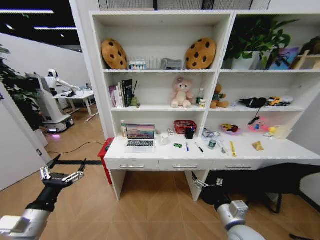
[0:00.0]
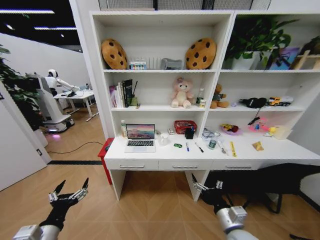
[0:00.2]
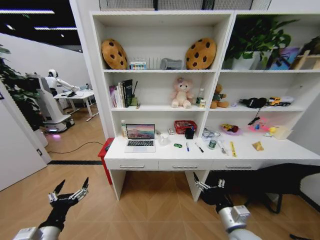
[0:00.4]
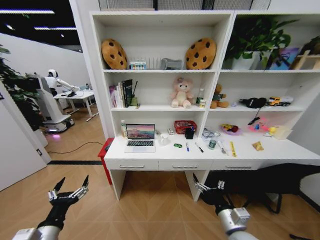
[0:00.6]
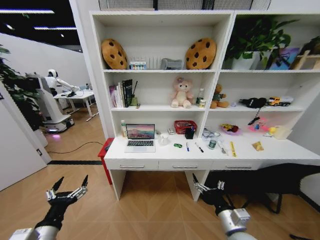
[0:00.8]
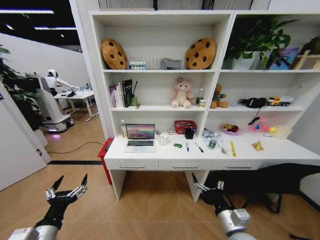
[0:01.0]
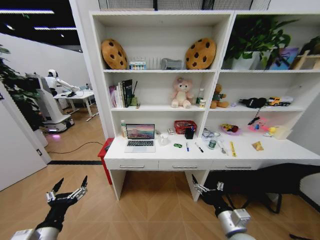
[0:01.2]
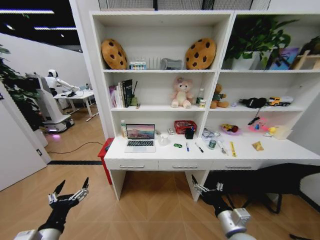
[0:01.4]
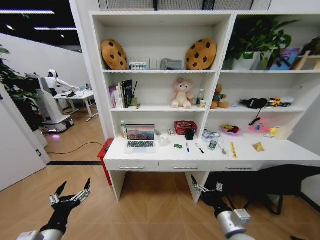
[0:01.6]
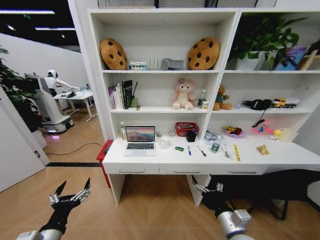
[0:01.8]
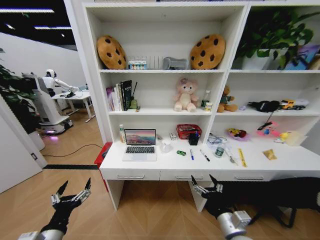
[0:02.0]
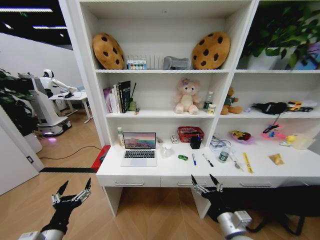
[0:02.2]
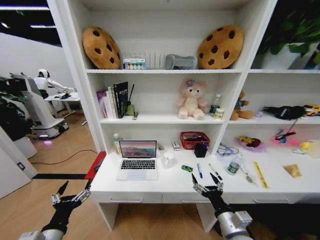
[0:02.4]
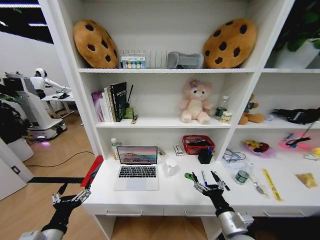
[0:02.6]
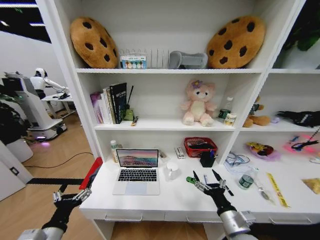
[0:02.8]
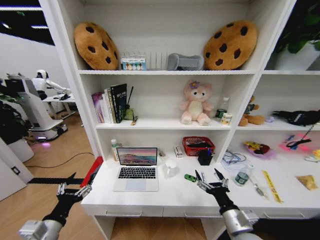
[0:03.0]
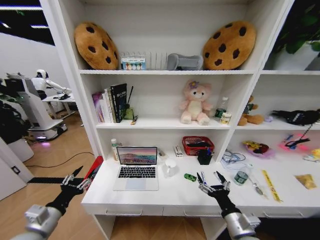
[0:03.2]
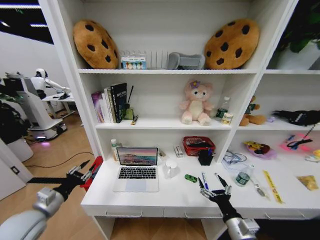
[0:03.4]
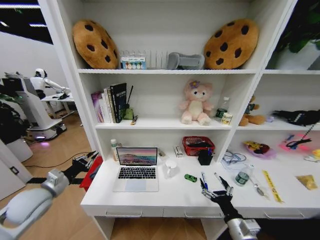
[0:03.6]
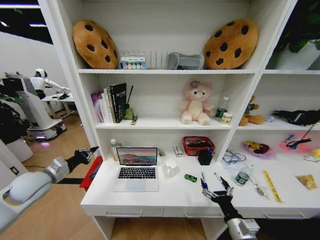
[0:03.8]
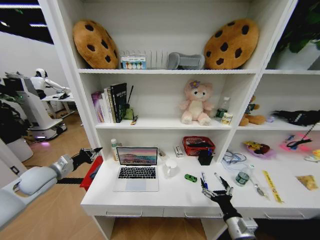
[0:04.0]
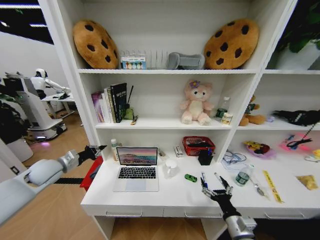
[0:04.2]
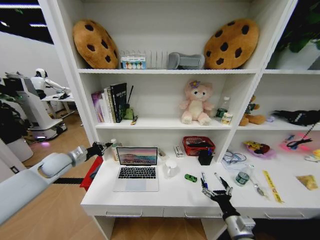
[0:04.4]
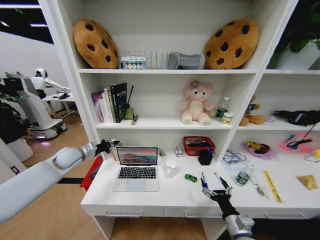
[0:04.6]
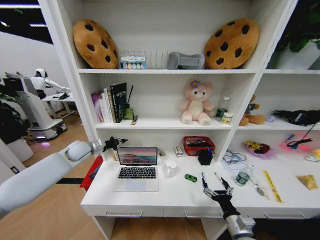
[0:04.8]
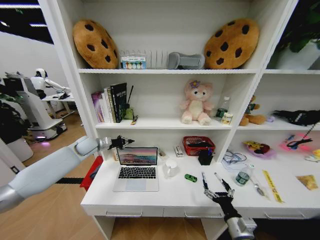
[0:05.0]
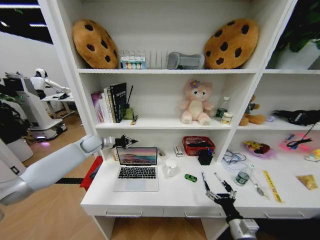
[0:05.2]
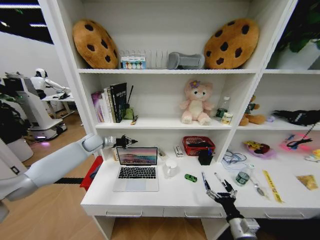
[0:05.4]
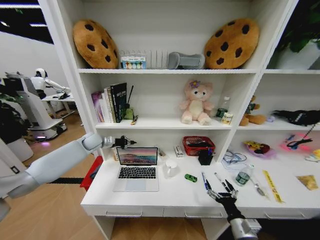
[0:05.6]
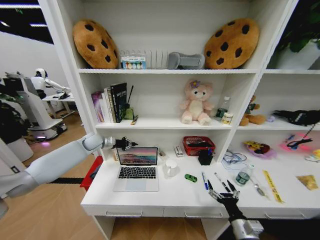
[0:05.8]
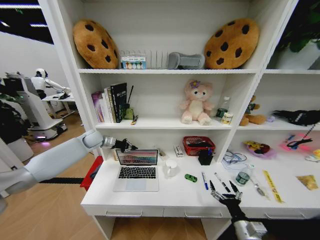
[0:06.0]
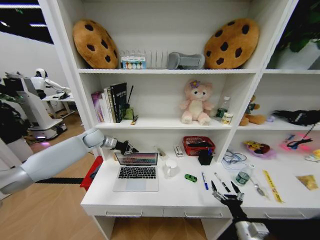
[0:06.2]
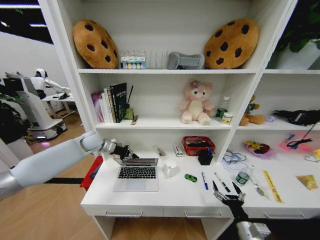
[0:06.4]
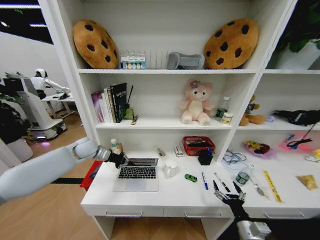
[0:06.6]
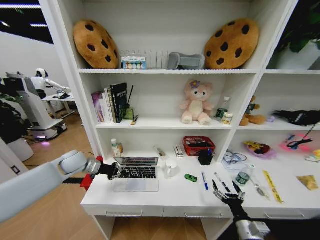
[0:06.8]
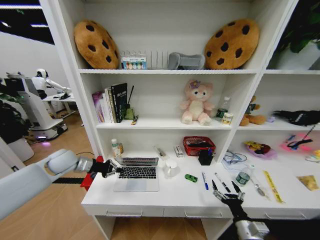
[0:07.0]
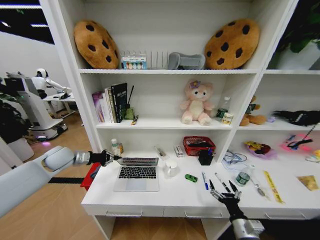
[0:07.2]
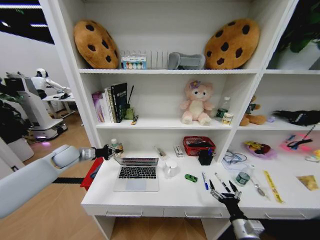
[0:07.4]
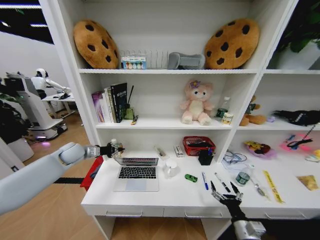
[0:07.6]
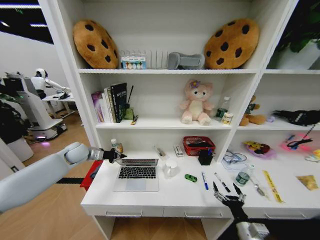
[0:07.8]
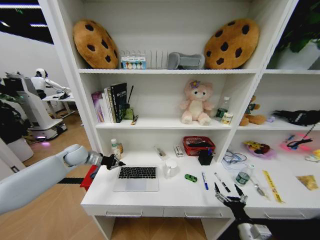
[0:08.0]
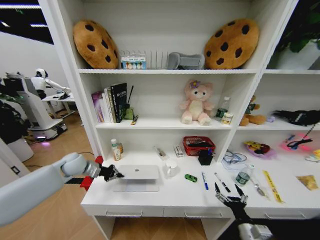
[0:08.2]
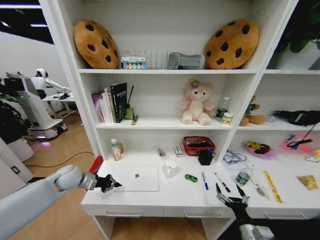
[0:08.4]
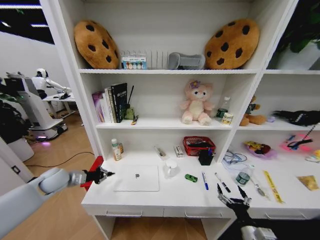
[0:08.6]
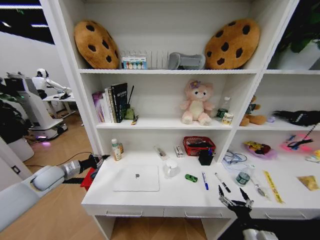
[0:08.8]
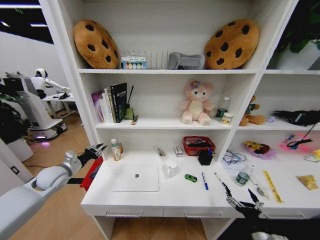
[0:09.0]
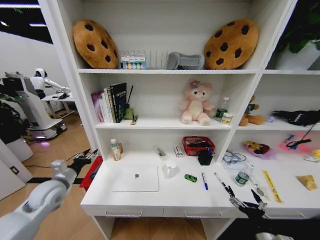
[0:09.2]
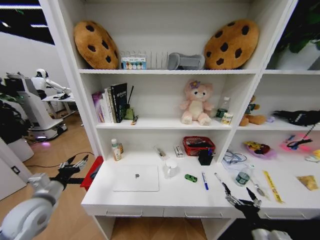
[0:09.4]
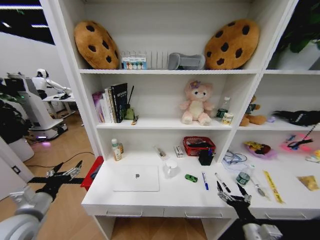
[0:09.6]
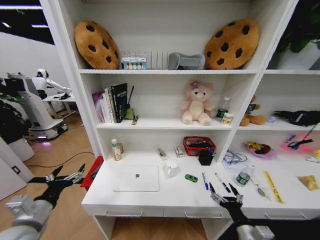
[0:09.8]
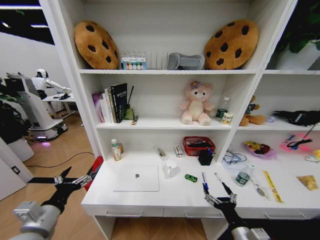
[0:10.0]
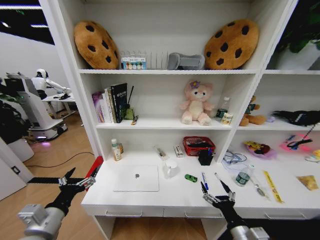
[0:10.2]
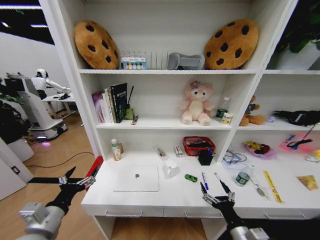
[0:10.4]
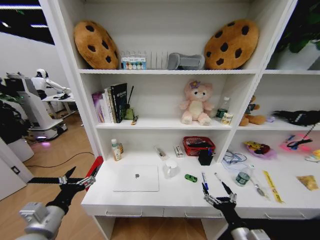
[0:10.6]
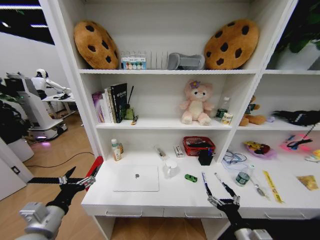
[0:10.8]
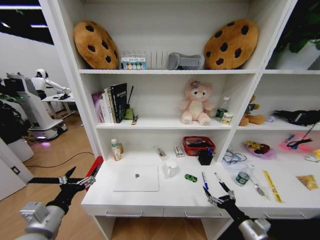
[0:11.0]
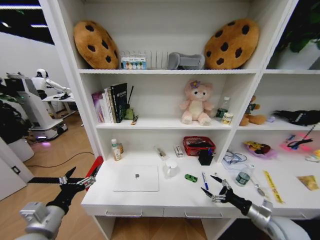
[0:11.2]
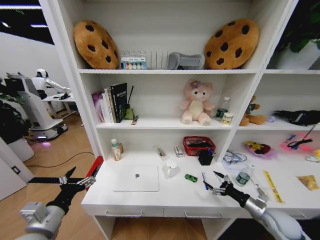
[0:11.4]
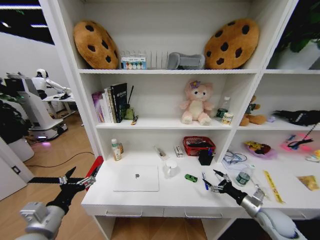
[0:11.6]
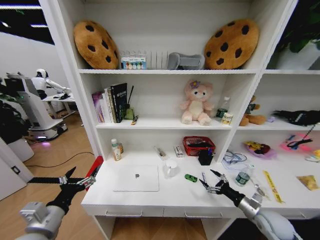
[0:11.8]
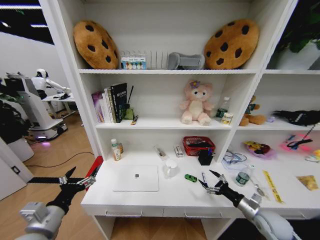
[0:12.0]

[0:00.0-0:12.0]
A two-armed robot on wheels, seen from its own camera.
Task of the whole recording: Organize the objects on the table.
0:03.0 to 0:04.4: The right gripper goes about 5 cm downward; the left gripper goes some 30 cm forward, and closes.
0:04.4 to 0:06.0: The left gripper is displaced forward and to the right by some 15 cm.
0:06.0 to 0:07.6: The left gripper goes about 10 cm backward and to the left.
0:07.6 to 0:09.0: The left gripper travels backward by some 10 cm.
0:09.0 to 0:10.4: The left gripper moves backward and to the right, about 25 cm, and opens, while the right gripper moves to the left, about 5 cm.
0:10.4 to 0:12.0: The right gripper moves to the right and forward, some 20 cm.

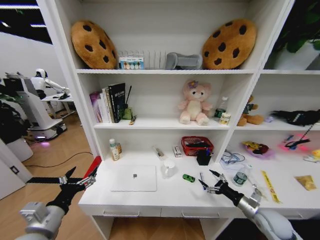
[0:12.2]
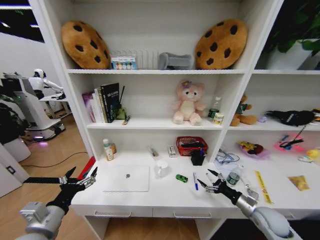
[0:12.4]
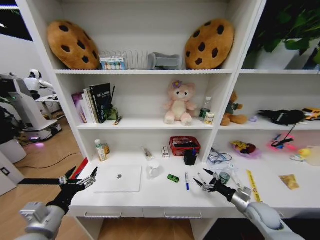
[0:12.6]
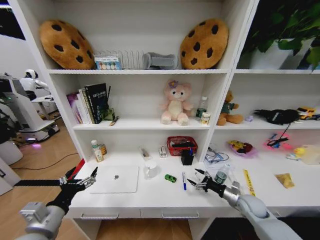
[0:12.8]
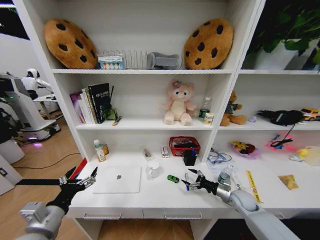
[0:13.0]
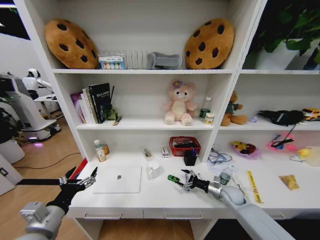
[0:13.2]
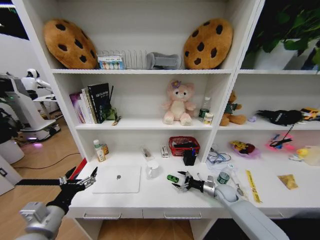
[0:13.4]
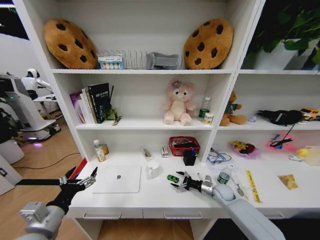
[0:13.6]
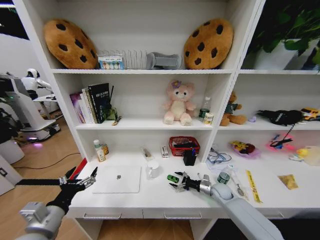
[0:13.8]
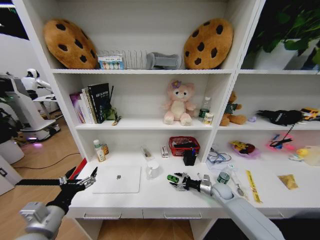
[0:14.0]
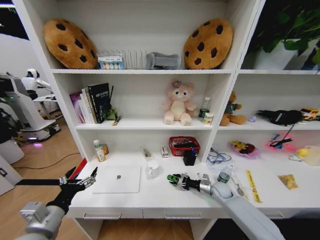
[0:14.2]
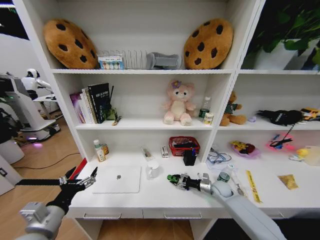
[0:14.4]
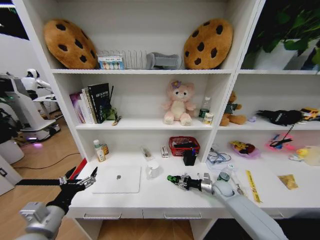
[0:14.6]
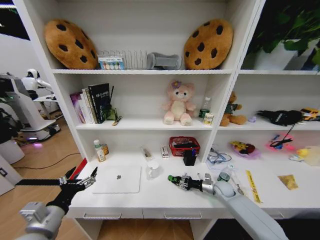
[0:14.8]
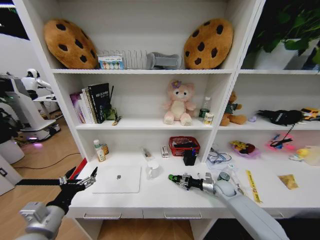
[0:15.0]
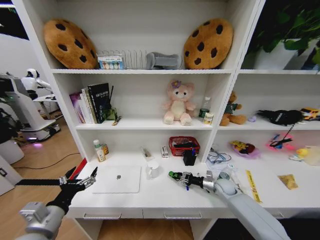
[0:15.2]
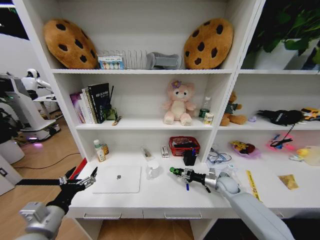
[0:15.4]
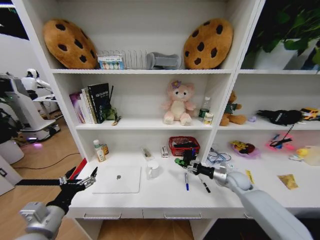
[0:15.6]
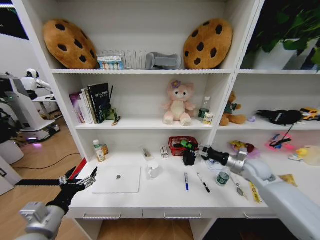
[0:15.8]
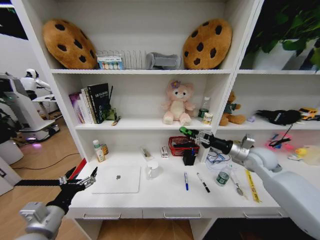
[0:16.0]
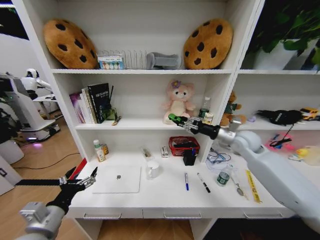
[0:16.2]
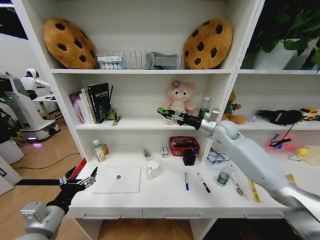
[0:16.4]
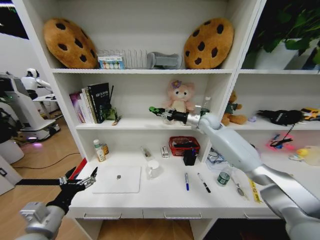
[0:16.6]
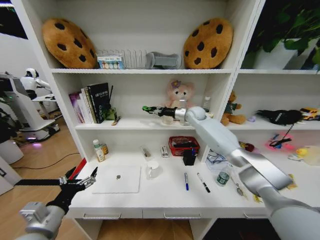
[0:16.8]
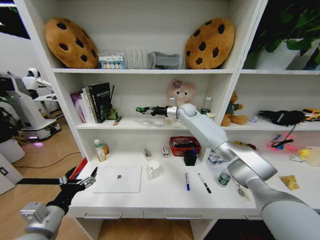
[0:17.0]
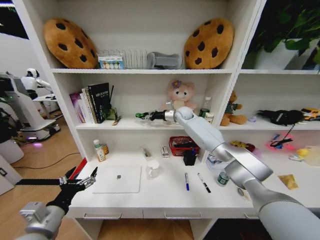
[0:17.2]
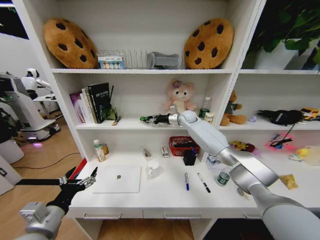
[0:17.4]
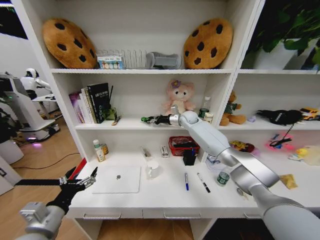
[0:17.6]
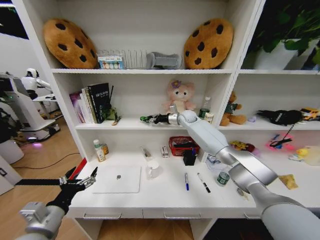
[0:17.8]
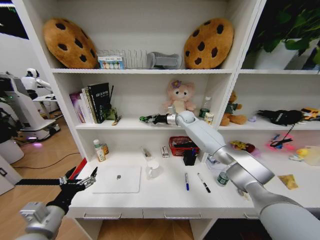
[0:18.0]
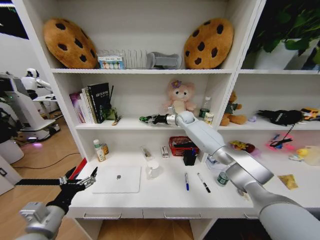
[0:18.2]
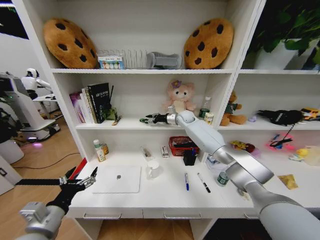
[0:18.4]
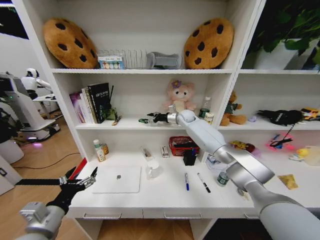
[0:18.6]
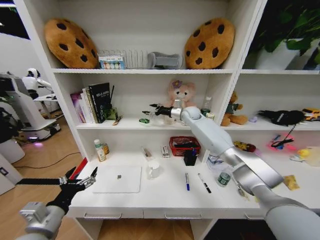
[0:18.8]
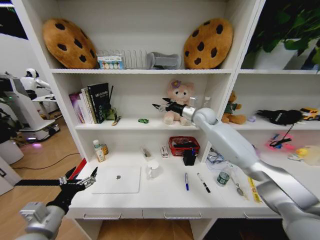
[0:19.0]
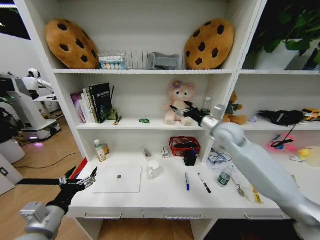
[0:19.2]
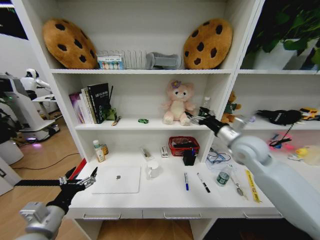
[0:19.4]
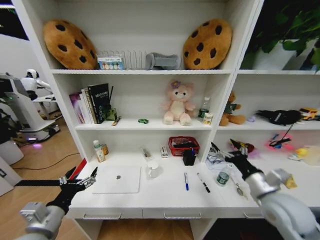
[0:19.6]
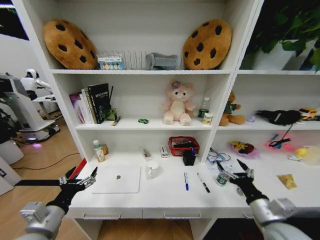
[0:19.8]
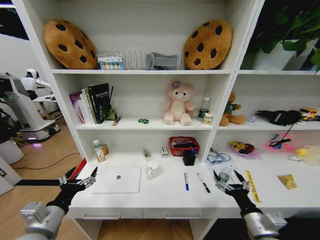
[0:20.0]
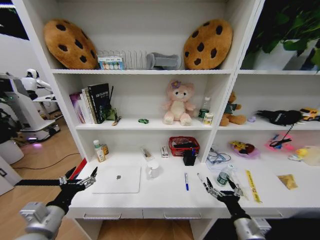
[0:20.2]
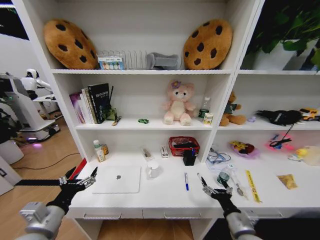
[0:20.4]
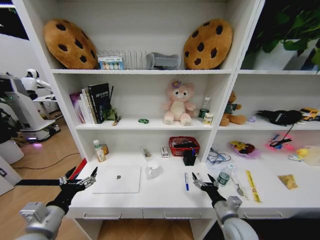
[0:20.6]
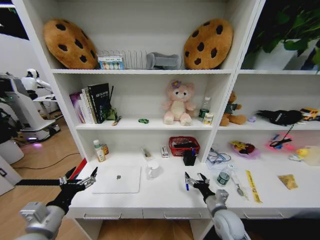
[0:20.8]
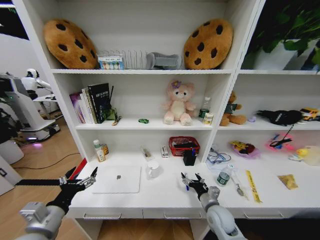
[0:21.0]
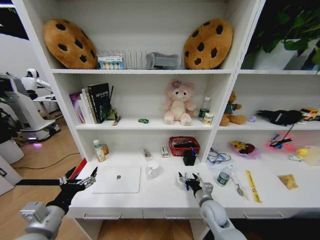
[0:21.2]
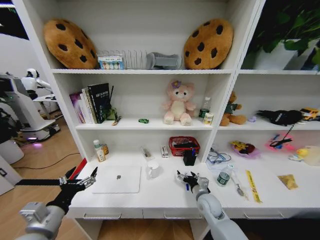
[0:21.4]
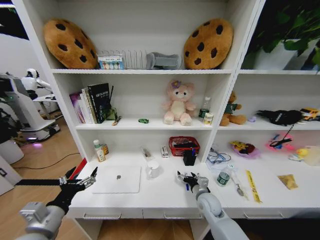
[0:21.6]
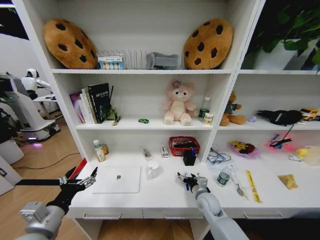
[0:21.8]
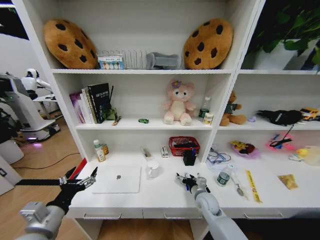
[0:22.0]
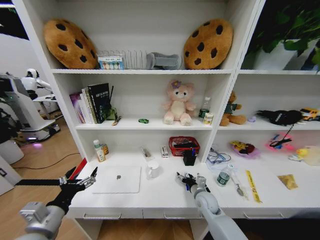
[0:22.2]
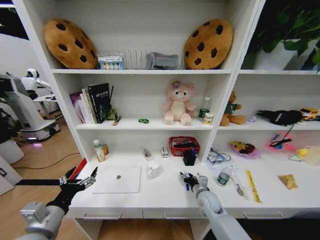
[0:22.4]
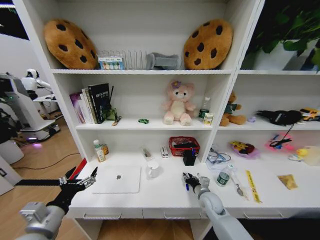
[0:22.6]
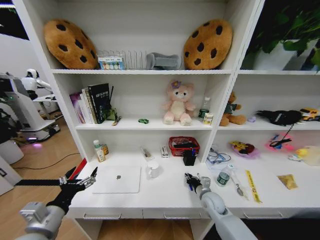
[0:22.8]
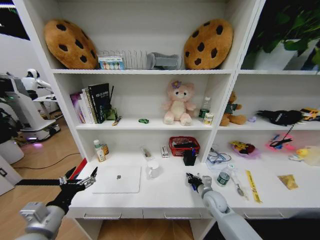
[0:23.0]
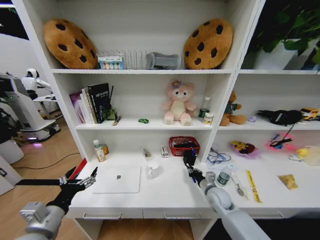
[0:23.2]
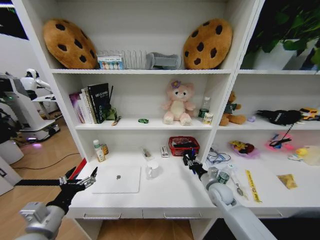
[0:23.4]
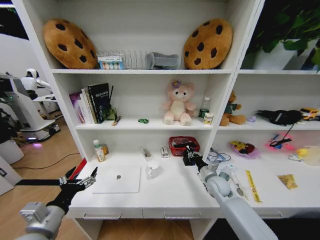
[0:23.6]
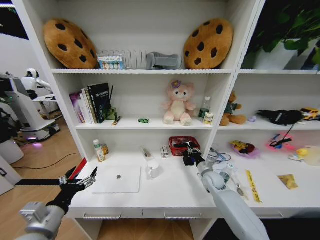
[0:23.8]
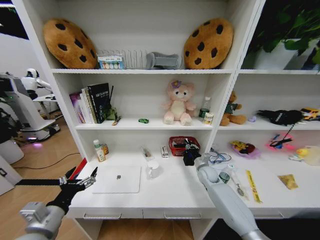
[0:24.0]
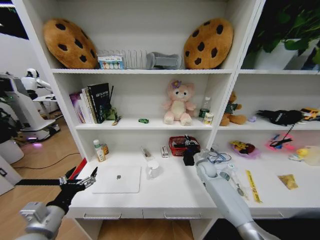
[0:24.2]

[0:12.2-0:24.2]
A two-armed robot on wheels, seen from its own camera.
Task of the whole recording: Organize the objects on the table.
0:12.2 to 0:13.8: The right gripper goes about 20 cm forward, to the left and downward.
0:13.8 to 0:15.2: The right gripper closes its fingers.
0:15.2 to 0:16.6: The right gripper is displaced upward and forward by about 35 cm.
0:16.6 to 0:18.2: The right gripper goes about 10 cm forward and to the left.
0:18.2 to 0:19.8: The right gripper is displaced backward by about 50 cm, and opens its fingers.
0:19.8 to 0:21.2: The right gripper shifts roughly 20 cm downward, forward and to the left.
0:21.2 to 0:22.6: The right gripper closes its fingers.
0:22.6 to 0:24.2: The right gripper goes some 15 cm forward.
